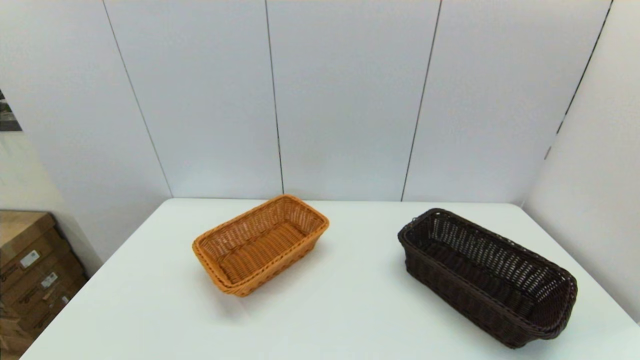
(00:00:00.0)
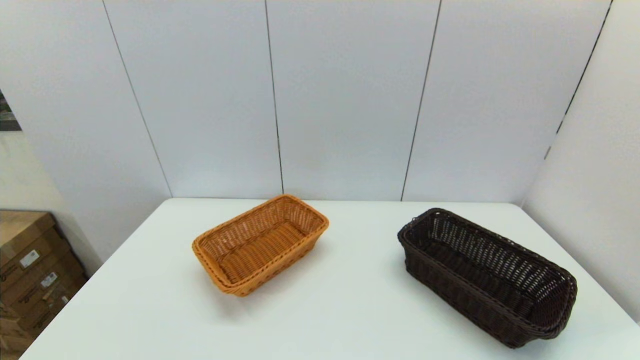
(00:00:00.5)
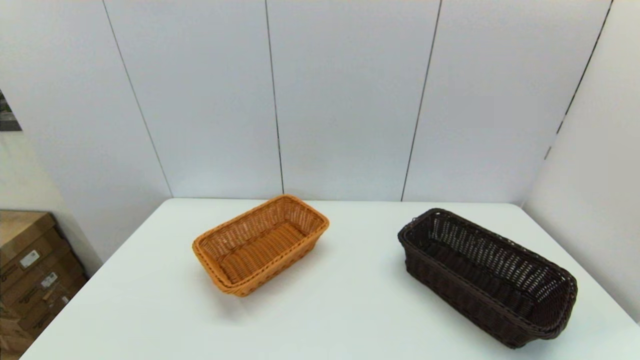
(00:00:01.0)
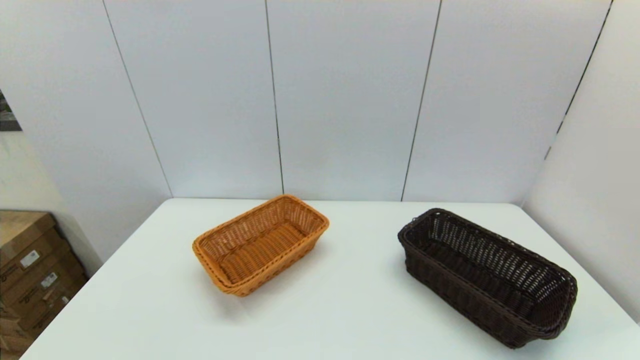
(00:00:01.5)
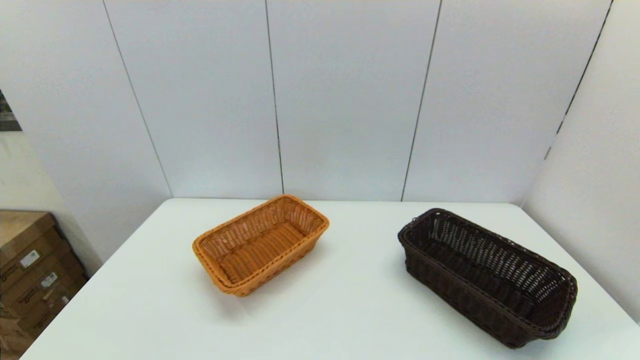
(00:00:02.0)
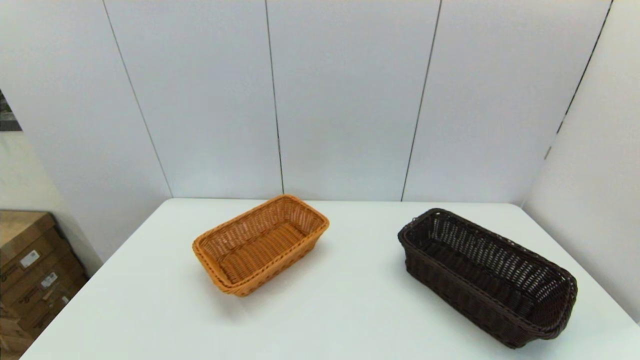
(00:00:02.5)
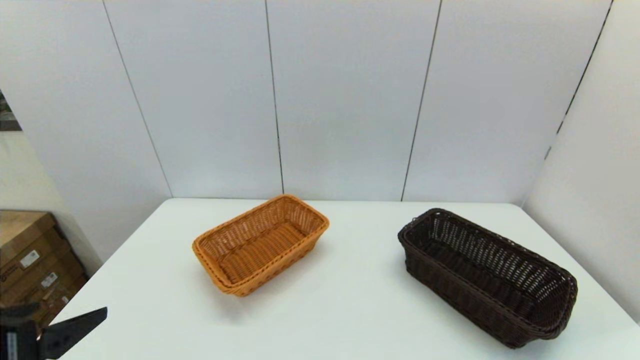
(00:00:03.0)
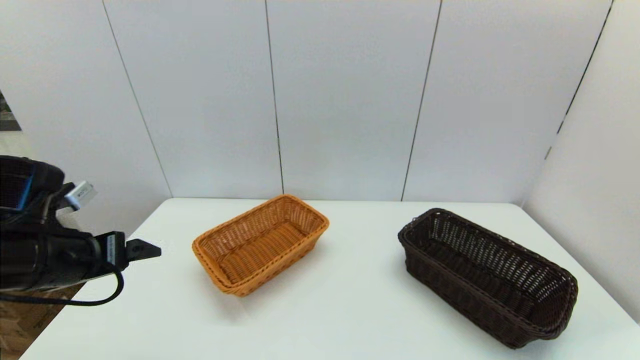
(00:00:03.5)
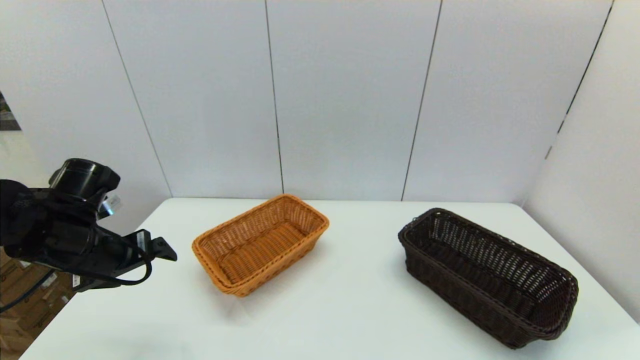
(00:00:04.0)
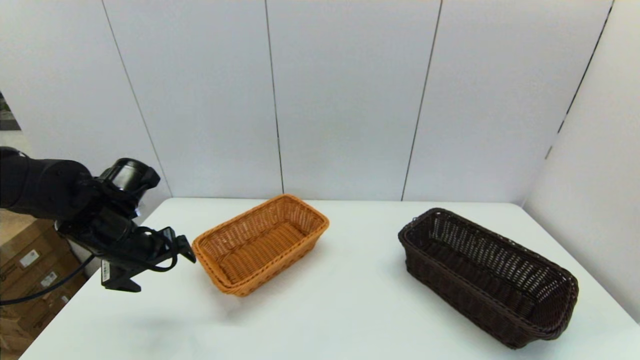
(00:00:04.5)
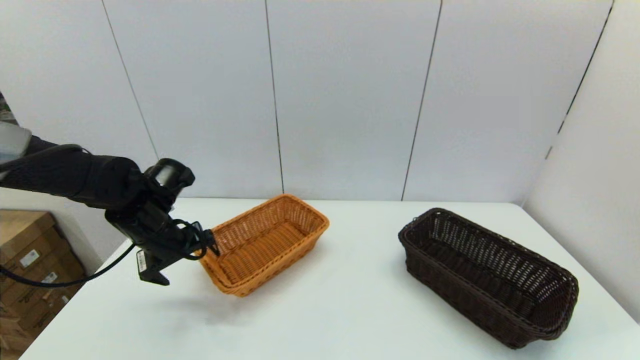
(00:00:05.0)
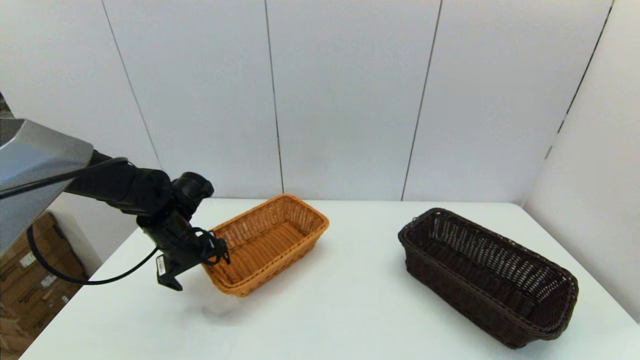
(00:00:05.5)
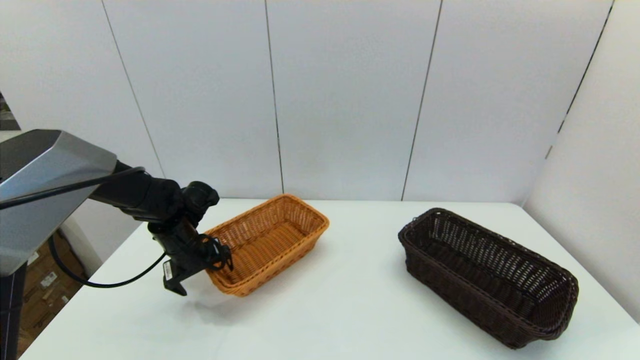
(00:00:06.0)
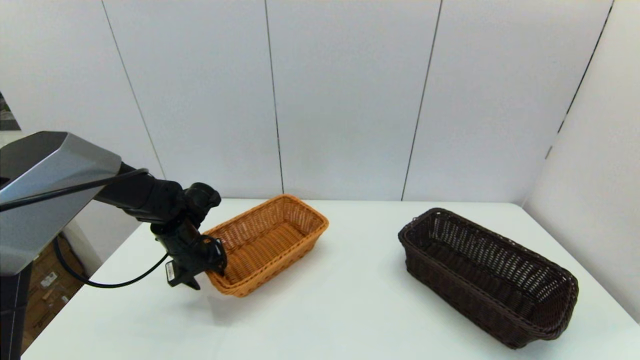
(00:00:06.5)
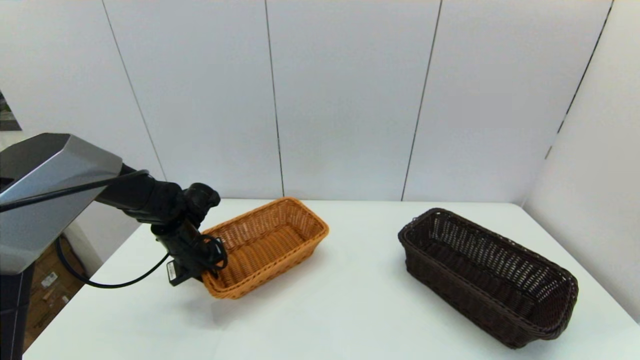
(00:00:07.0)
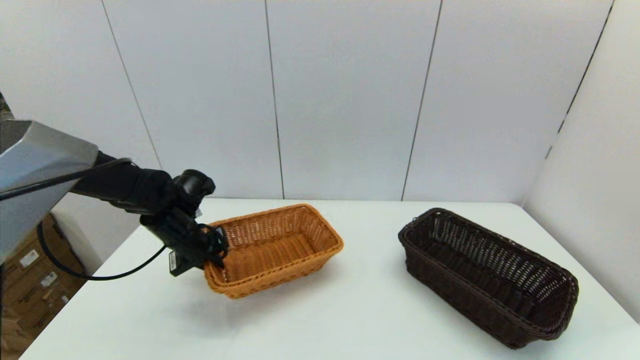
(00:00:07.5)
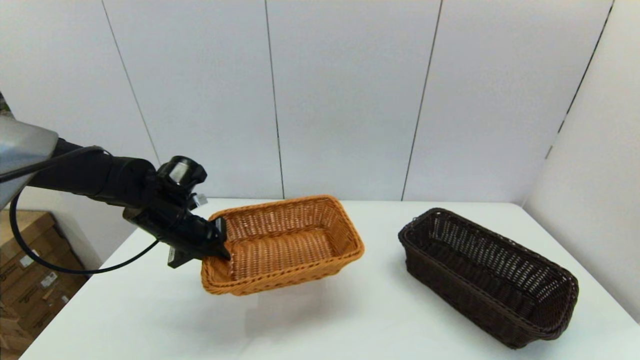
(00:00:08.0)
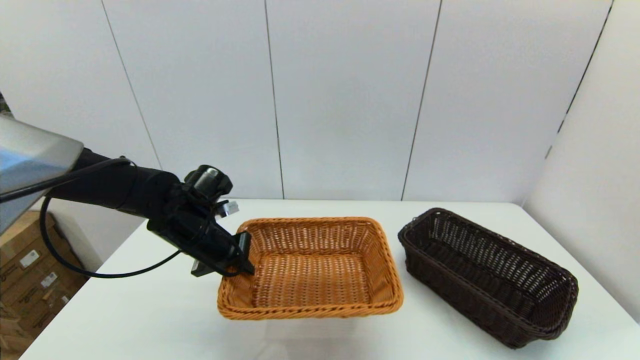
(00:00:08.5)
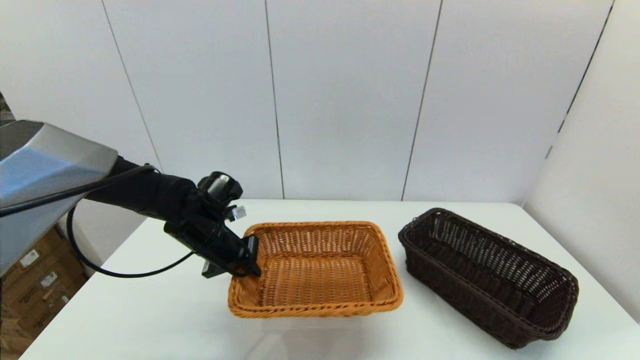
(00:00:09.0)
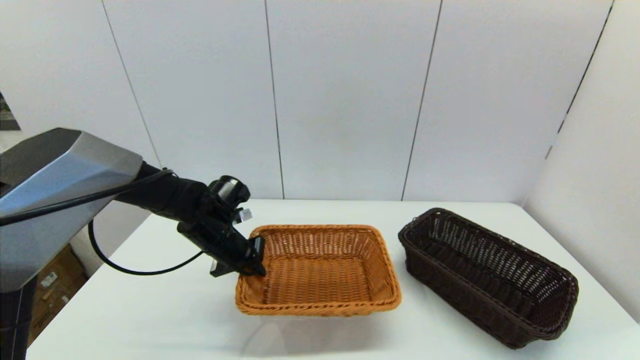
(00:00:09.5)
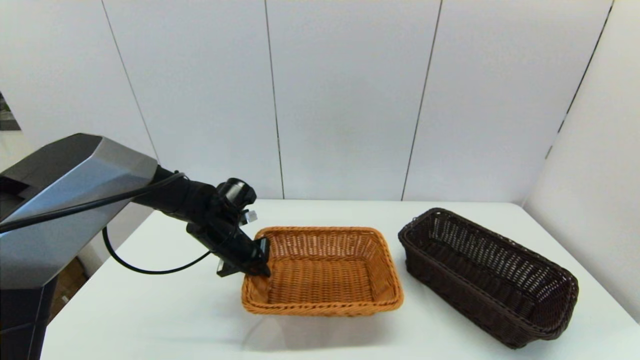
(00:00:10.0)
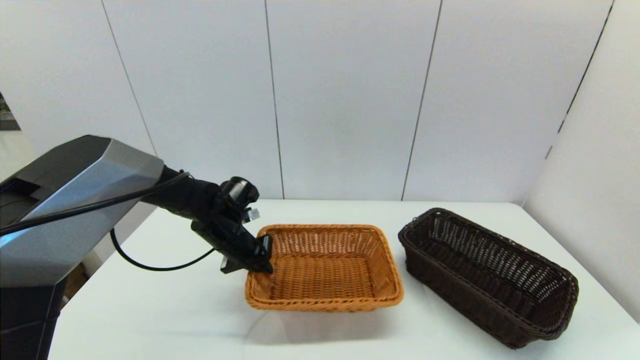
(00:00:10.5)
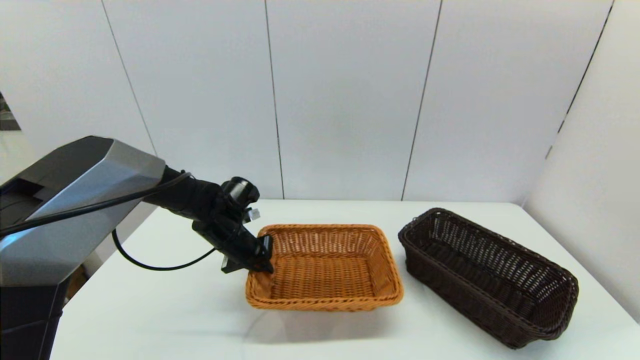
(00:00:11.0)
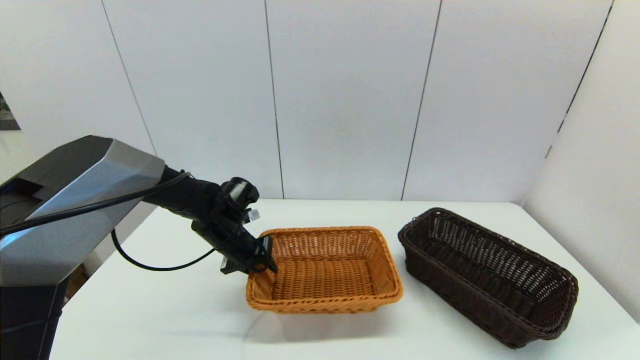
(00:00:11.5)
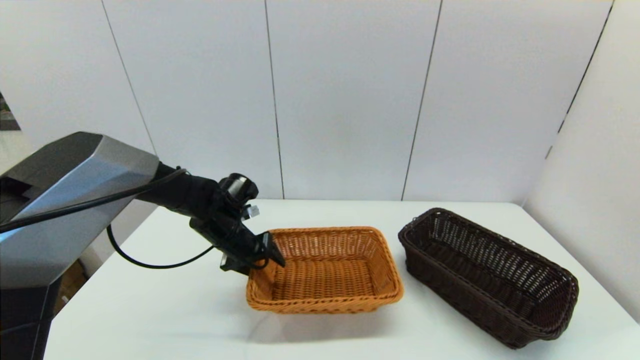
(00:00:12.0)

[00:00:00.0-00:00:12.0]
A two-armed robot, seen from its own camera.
Task of the whole recording: stack a basket on top of another basket.
Step, 00:00:03.0 to 00:00:07.0: Grasp the light basket with the left gripper.
00:00:02.0 to 00:00:04.0: The left gripper shifts some 30 cm forward.
00:00:04.0 to 00:00:06.0: The left gripper is displaced forward, downward and to the right by approximately 15 cm.
00:00:06.0 to 00:00:08.0: The left gripper is displaced upward by approximately 5 cm, and closes up.
00:00:08.0 to 00:00:10.0: The left gripper moves to the right and downward, some 10 cm.
00:00:10.0 to 00:00:12.0: The left gripper opens.

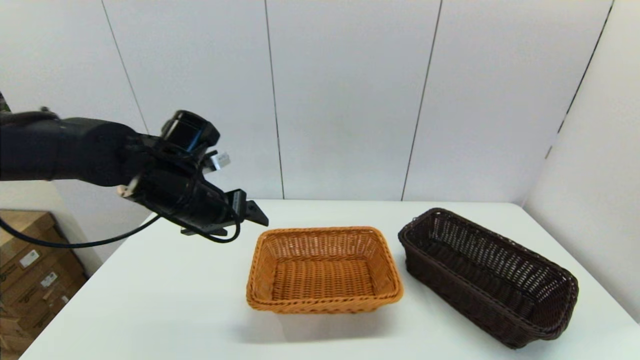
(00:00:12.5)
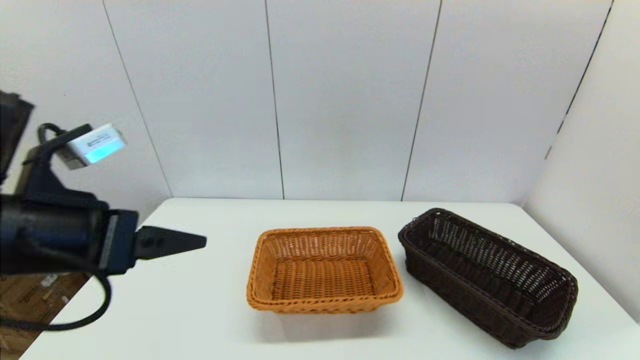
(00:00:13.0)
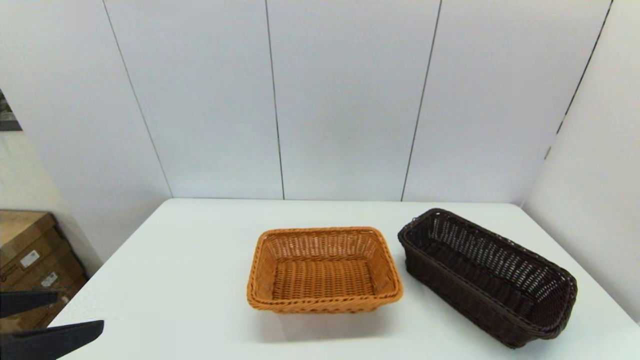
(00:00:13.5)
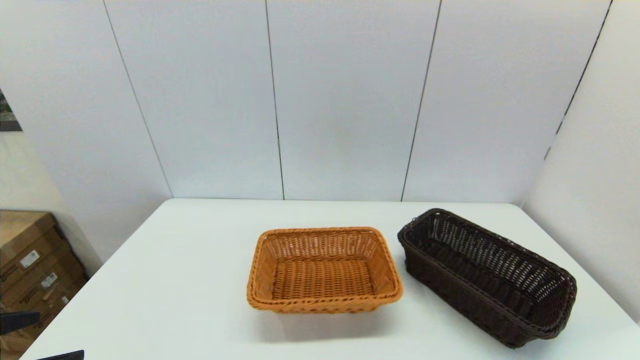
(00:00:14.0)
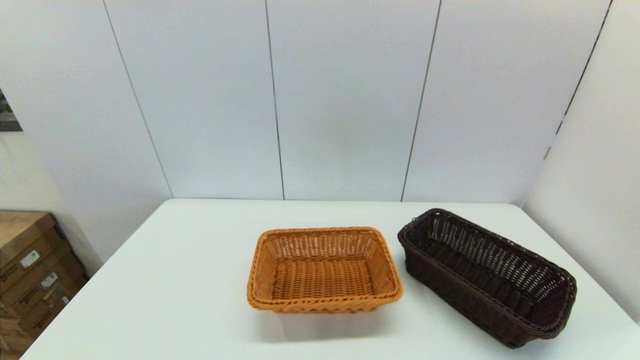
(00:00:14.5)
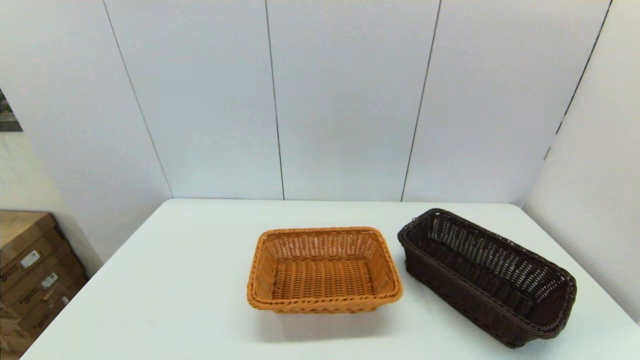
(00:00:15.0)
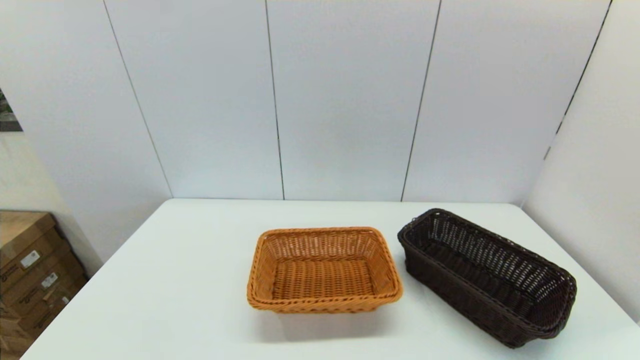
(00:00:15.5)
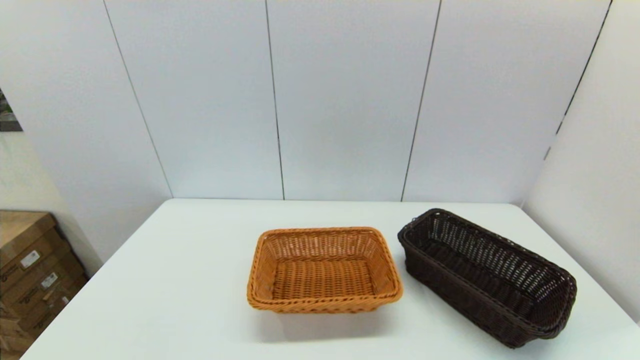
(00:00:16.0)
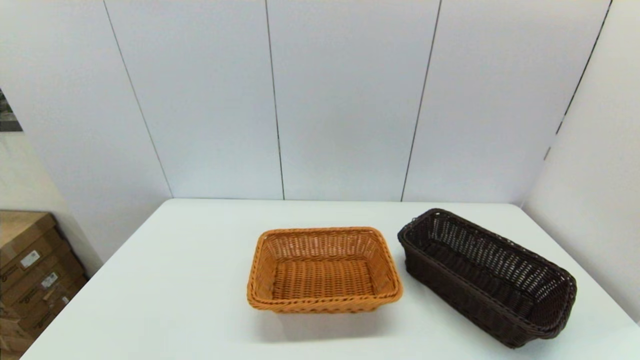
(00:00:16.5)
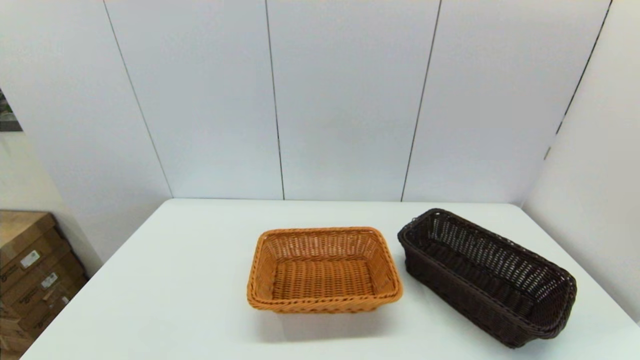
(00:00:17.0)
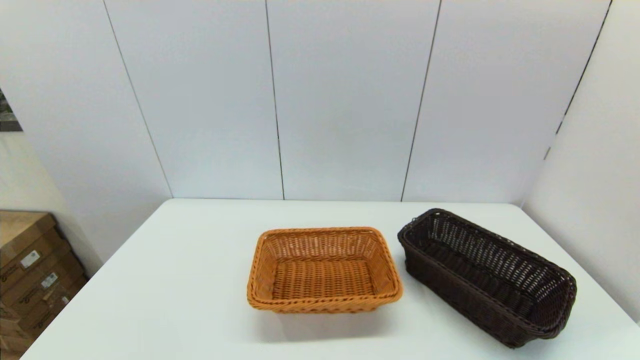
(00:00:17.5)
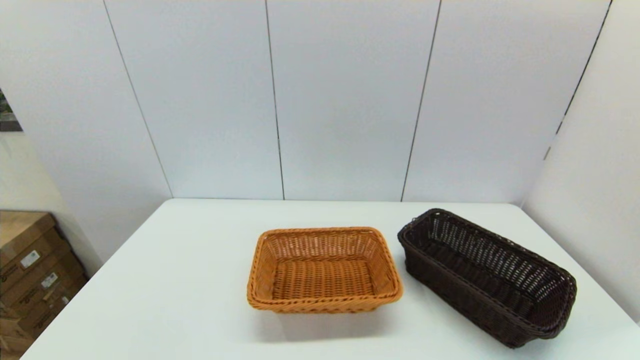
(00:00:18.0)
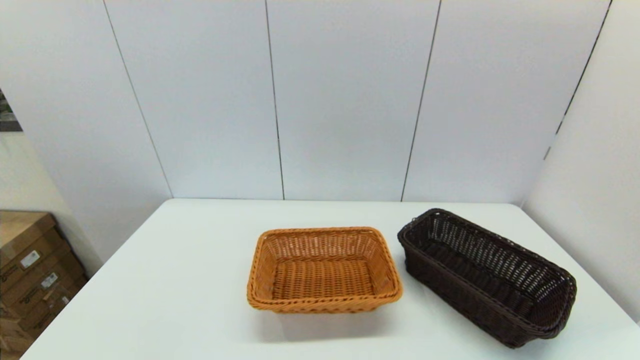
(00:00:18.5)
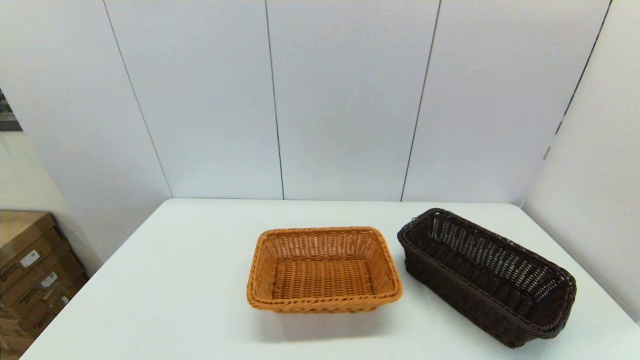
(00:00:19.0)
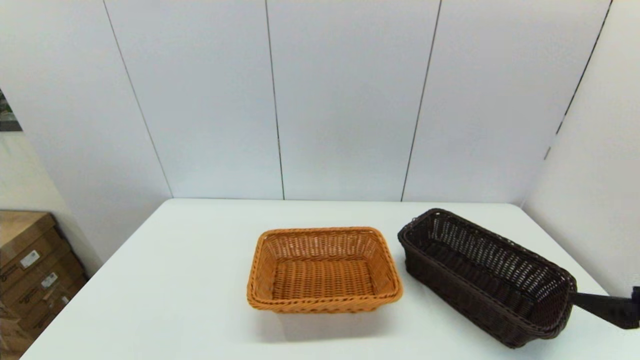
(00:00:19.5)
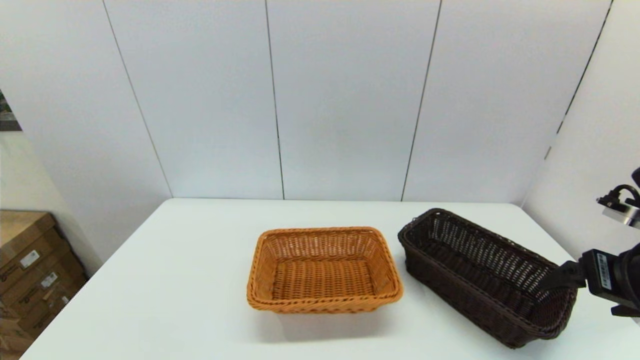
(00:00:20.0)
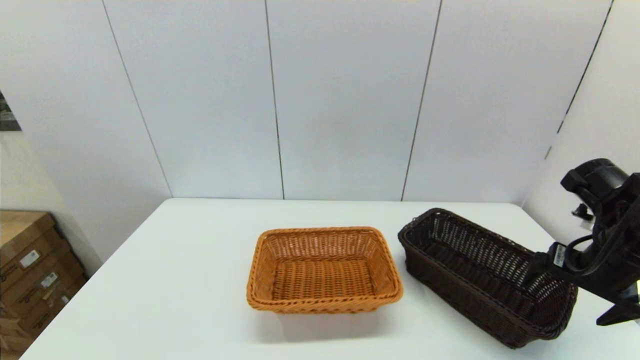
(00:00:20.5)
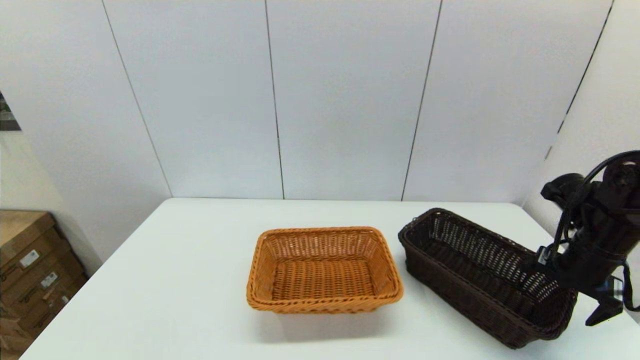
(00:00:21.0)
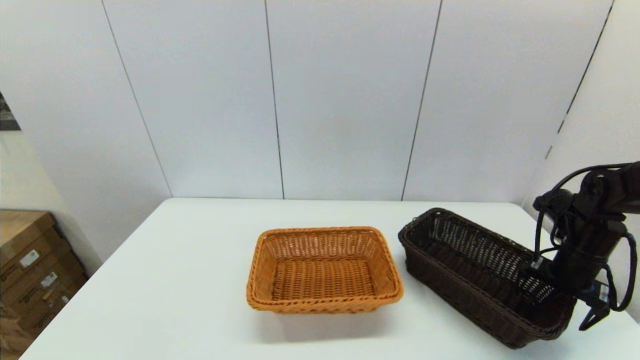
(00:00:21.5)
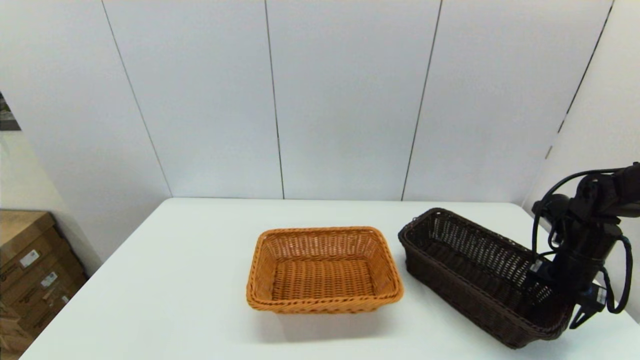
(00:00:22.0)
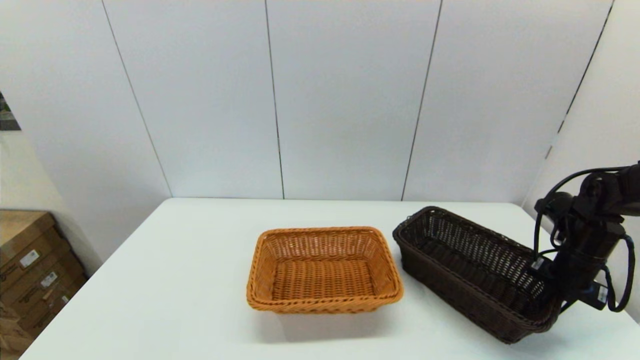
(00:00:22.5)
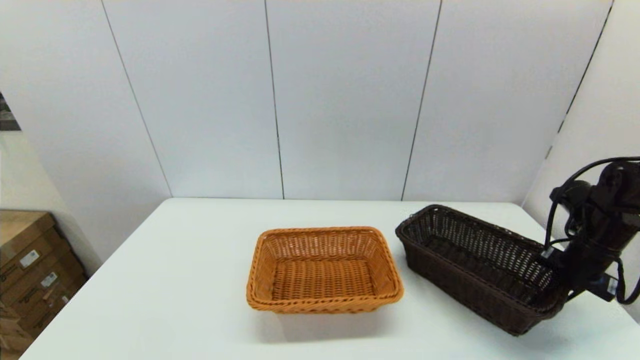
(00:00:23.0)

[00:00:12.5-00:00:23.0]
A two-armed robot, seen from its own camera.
Task of the whole recording: stack a basket on top of another basket.
Step, 00:00:13.0 to 00:00:22.5: Grasp the dark basket with the right gripper.
00:00:12.5 to 00:00:14.5: The left gripper travels backward by some 30 cm.
00:00:19.0 to 00:00:21.0: The right gripper goes some 30 cm forward.
00:00:21.0 to 00:00:23.0: The right gripper ends up roughly 5 cm from where it was, and closes up.
